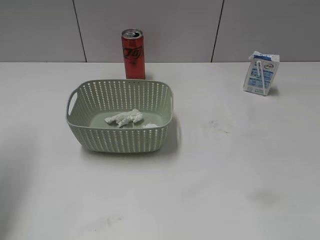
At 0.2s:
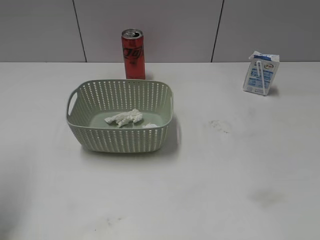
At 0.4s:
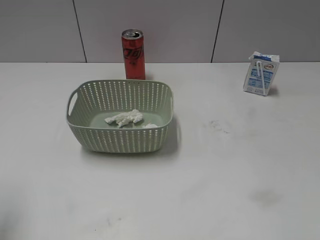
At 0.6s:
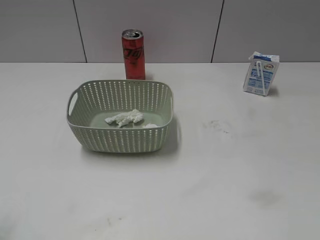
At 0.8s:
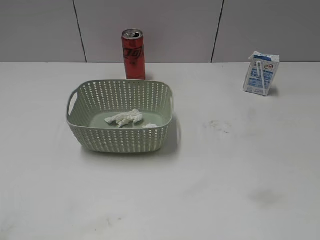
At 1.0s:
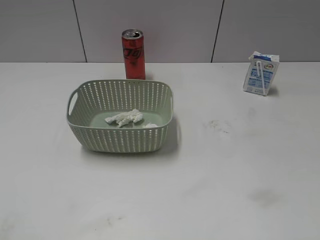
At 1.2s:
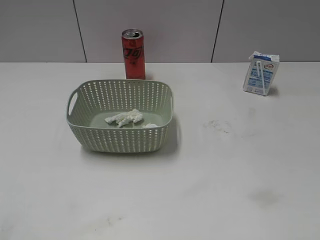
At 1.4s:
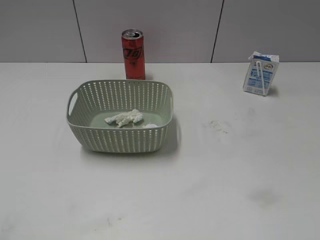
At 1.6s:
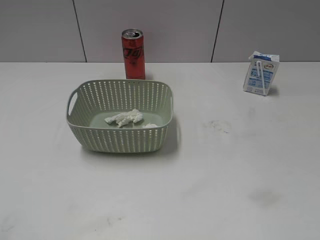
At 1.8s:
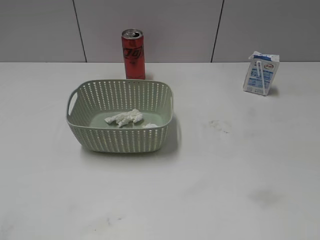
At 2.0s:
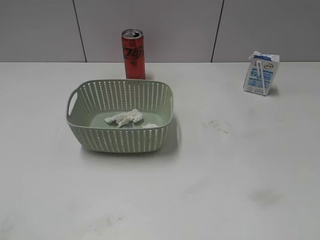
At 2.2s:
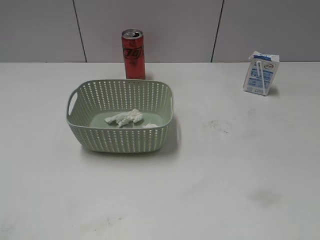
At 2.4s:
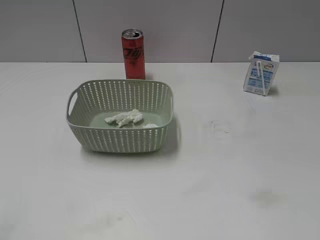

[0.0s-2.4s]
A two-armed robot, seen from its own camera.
0.0s to 1.2s: The left gripper travels backward by some 30 cm.
1.2s to 2.4s: Both grippers stay put.

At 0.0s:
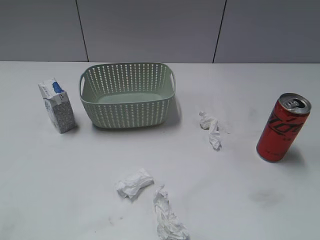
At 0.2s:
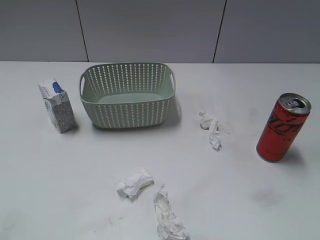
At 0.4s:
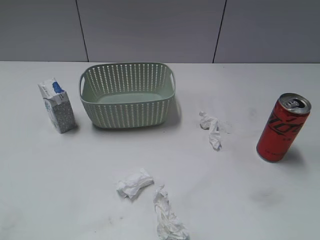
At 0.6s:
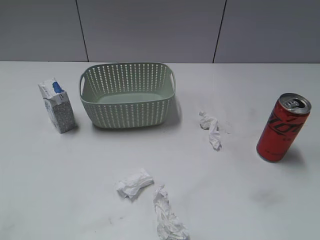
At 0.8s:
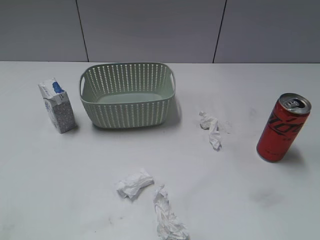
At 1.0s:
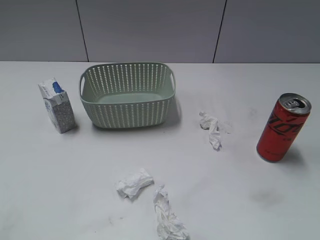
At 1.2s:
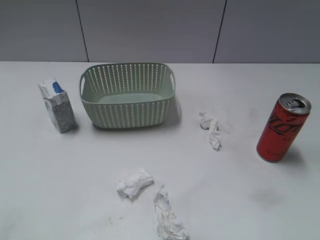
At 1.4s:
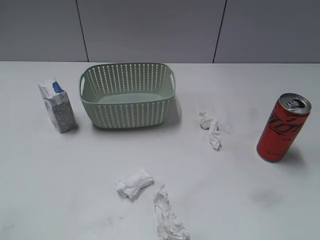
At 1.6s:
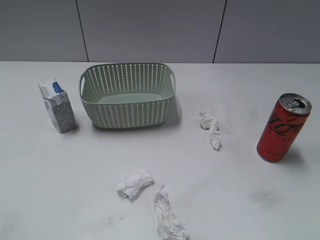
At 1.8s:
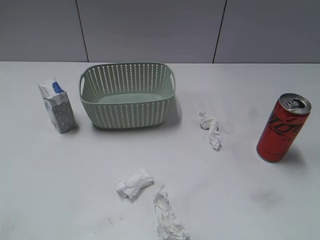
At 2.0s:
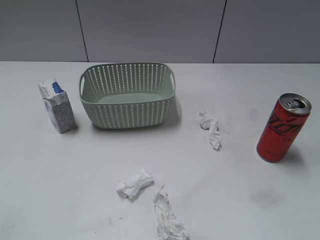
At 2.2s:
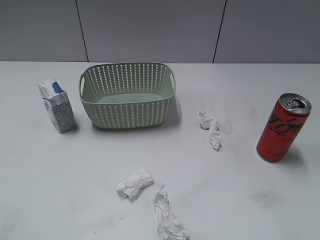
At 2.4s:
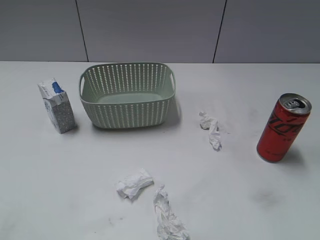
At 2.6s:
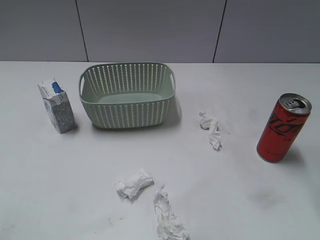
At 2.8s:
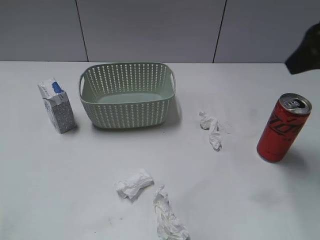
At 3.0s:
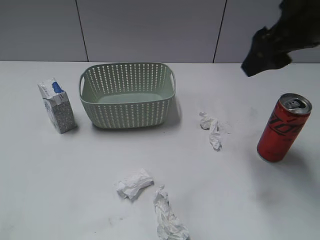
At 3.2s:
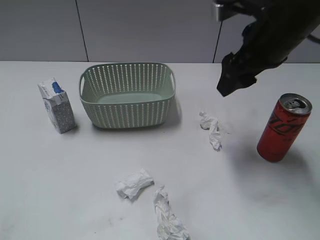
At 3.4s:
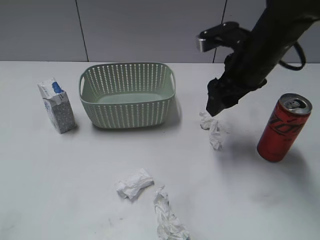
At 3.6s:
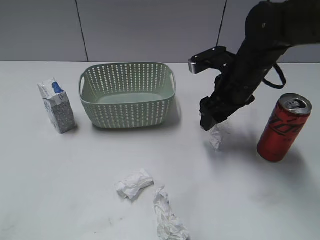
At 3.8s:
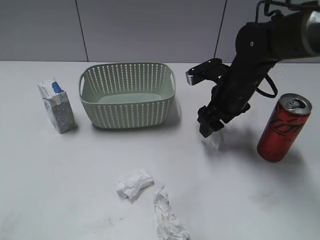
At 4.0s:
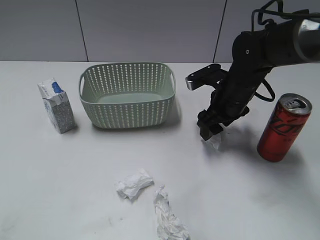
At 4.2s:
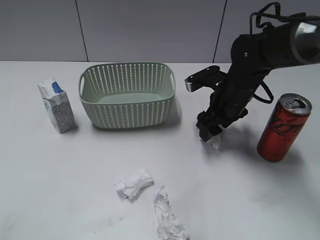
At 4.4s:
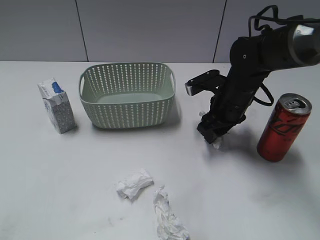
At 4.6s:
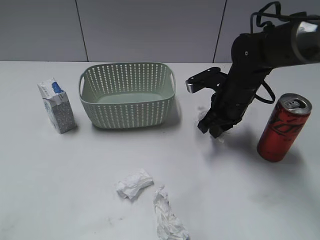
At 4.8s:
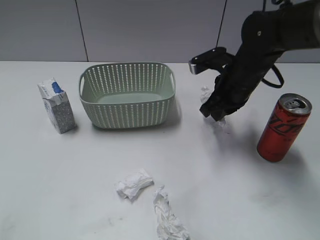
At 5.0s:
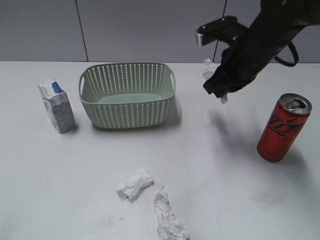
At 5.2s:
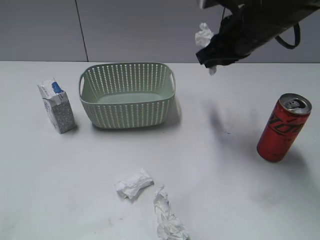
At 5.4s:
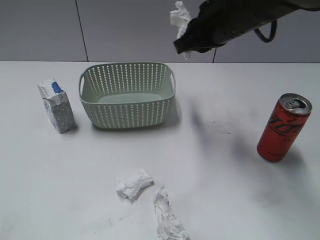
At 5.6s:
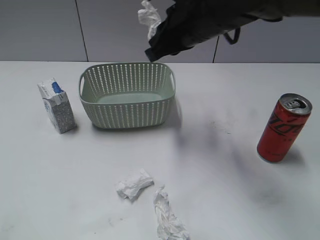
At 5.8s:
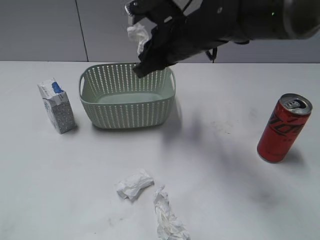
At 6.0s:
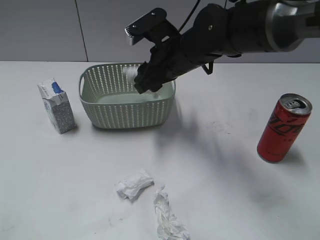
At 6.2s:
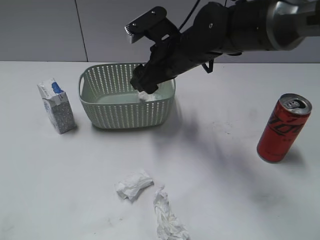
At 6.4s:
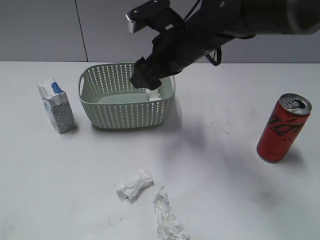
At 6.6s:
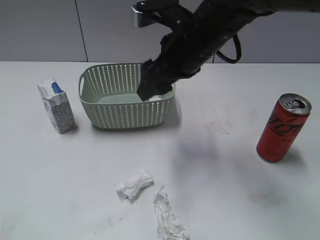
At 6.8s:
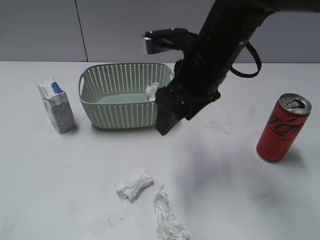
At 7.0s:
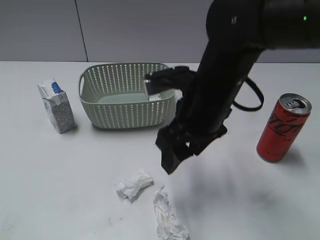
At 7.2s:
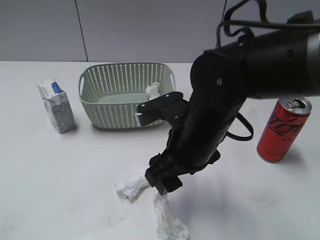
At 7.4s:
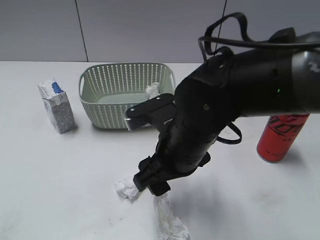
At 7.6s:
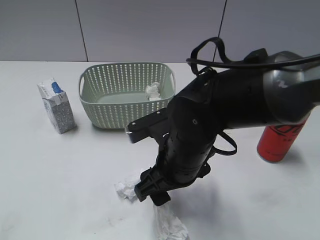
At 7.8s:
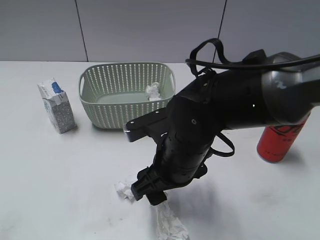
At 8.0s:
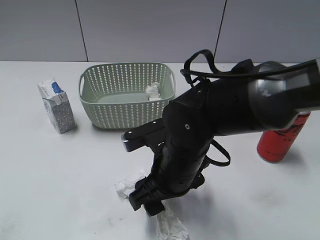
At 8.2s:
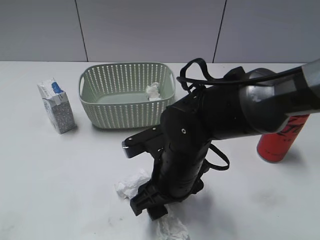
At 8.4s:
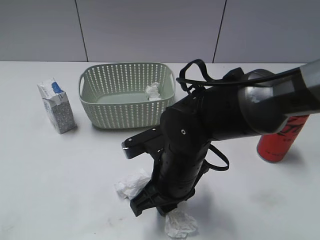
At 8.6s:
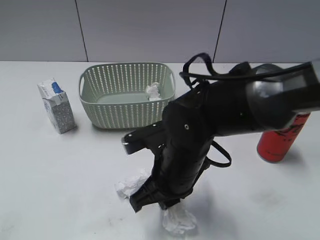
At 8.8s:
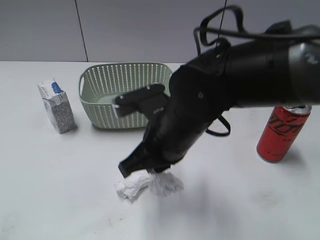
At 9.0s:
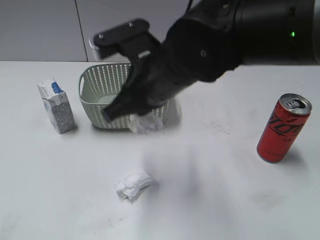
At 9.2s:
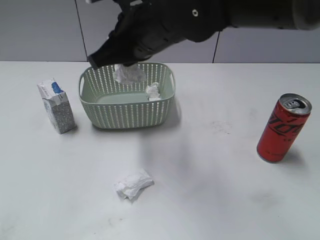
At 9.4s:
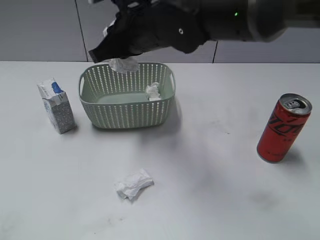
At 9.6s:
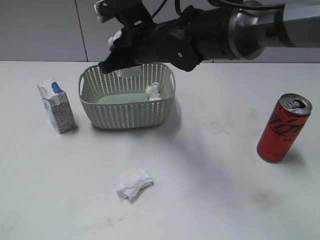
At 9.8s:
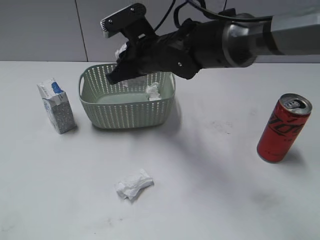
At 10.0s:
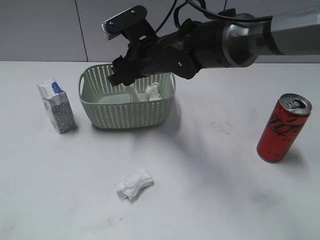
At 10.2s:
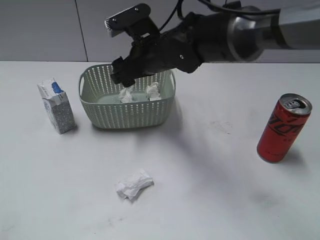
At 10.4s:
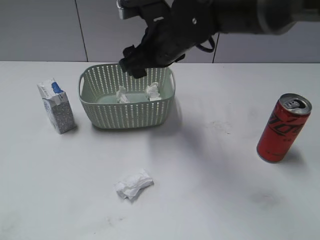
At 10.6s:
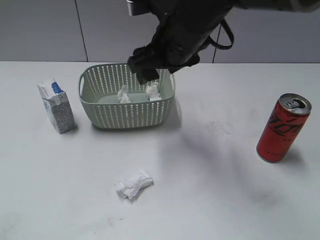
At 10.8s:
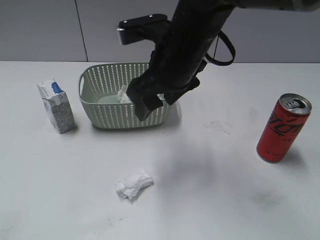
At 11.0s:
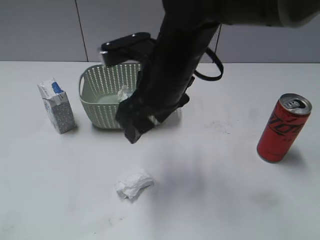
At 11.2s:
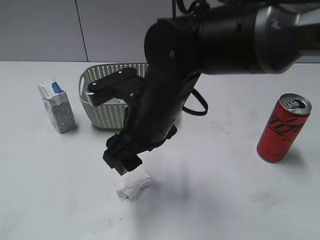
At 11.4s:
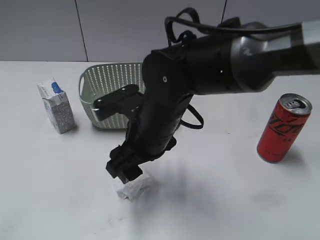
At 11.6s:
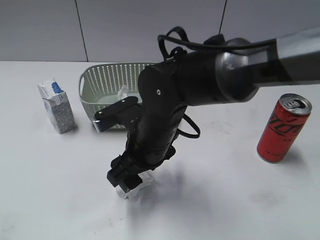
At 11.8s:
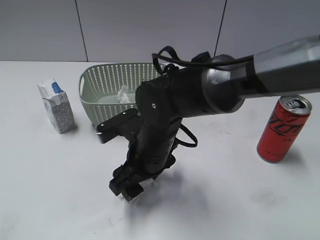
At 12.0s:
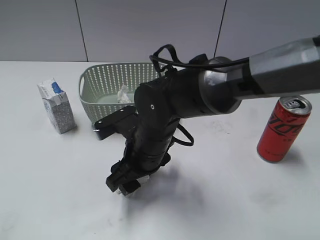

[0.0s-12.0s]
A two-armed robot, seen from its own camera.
Step, 2.6s to 4.6s: Grasp the waste paper with right gripper.
Step, 4.8s to 6.2s: Place the waste paper in the basket with right gripper.
Step, 6.4s to 8.6s: Grasp the waste paper with right gripper.
Step, 8.8s to 10.2s: Place the waste paper in the basket with right gripper.
1.6s to 3.0s: The right gripper travels forward and to the left by about 30 cm.
3.0s to 4.4s: The right gripper goes some 20 cm downward, and closes.
4.4s to 6.0s: The right gripper goes approximately 15 cm to the left and upward, and closes, then opens again.
6.0s to 7.6s: The right gripper travels backward by some 15 cm.
7.6s to 9.0s: The right gripper shifts roughly 10 cm upward, and closes.
9.0s to 10.4s: The right gripper goes roughly 10 cm forward, and opens its fingers.
10.4s to 12.0s: The right gripper goes some 15 cm downward and backward.

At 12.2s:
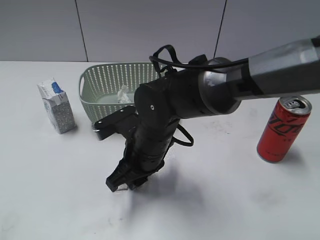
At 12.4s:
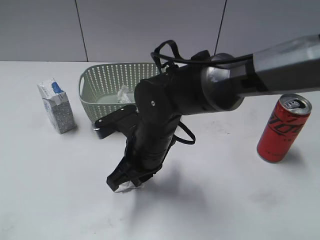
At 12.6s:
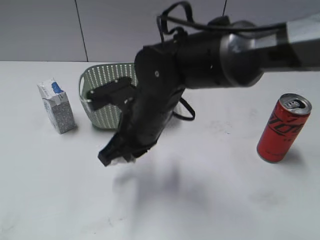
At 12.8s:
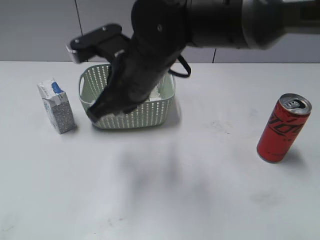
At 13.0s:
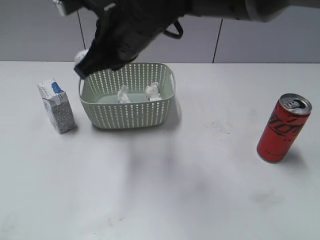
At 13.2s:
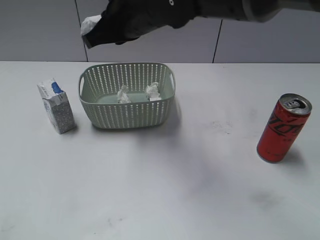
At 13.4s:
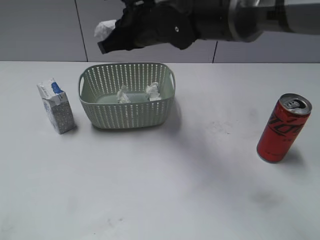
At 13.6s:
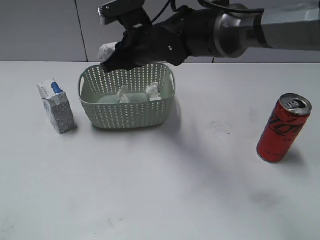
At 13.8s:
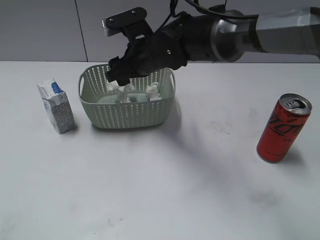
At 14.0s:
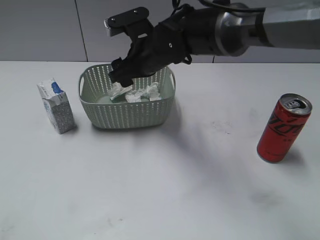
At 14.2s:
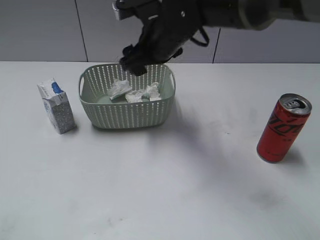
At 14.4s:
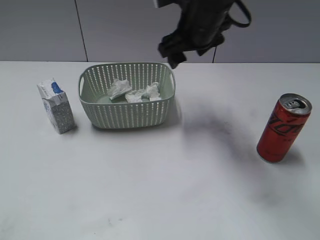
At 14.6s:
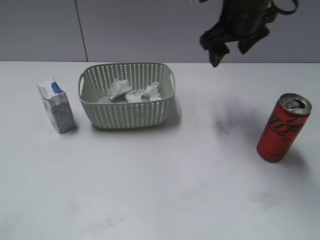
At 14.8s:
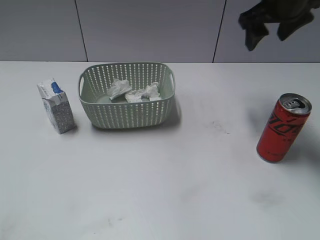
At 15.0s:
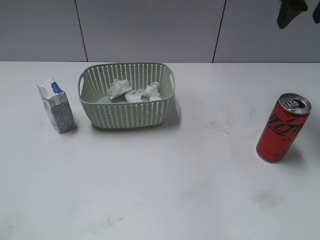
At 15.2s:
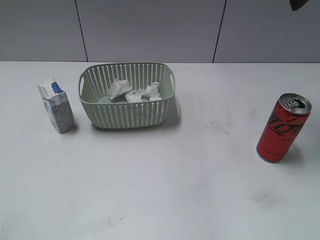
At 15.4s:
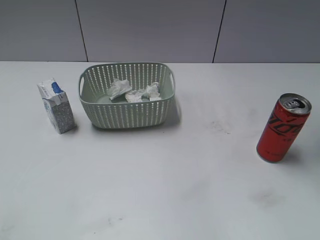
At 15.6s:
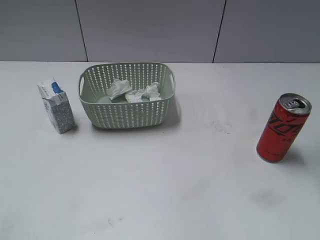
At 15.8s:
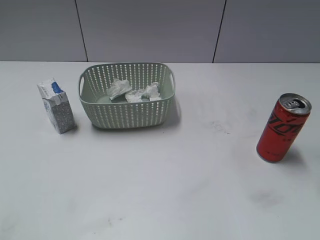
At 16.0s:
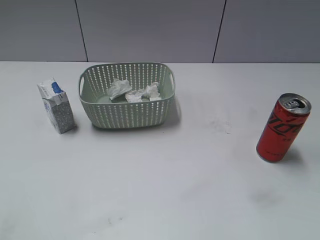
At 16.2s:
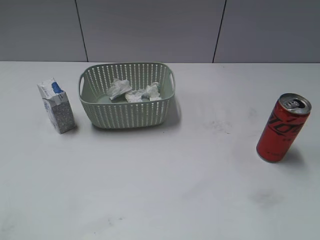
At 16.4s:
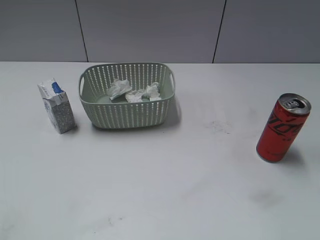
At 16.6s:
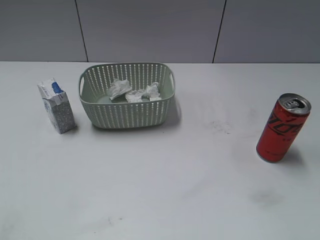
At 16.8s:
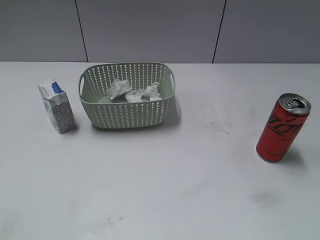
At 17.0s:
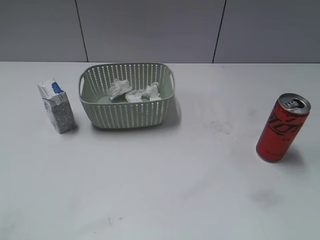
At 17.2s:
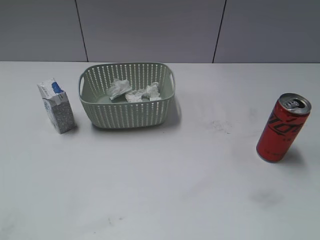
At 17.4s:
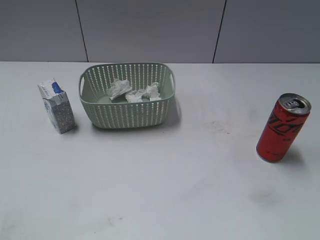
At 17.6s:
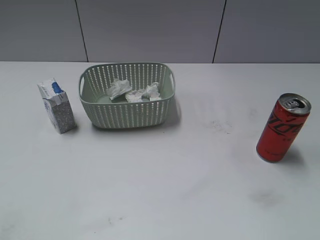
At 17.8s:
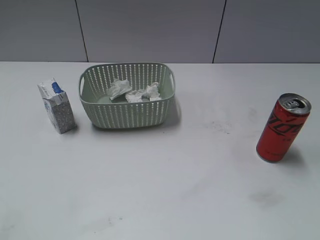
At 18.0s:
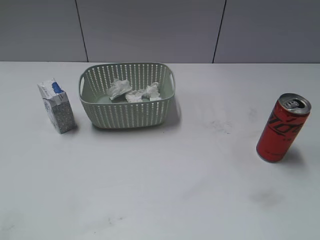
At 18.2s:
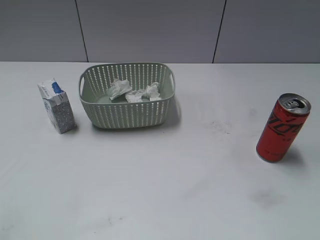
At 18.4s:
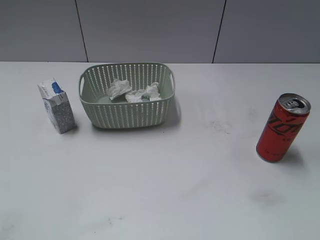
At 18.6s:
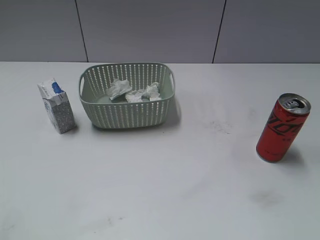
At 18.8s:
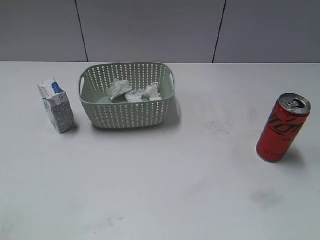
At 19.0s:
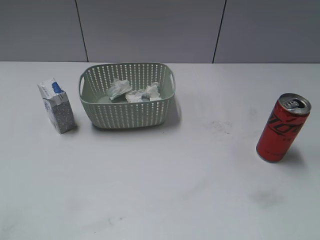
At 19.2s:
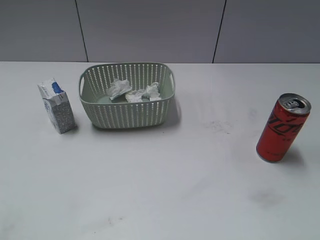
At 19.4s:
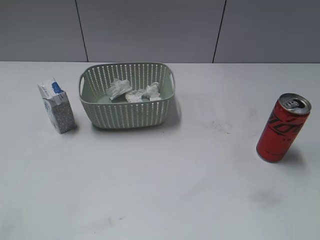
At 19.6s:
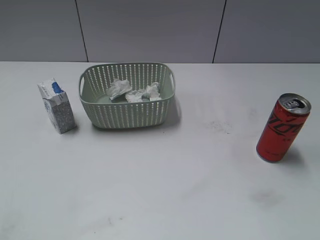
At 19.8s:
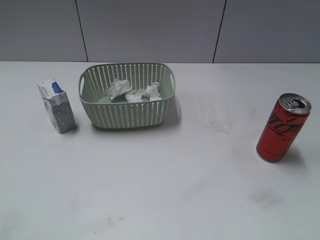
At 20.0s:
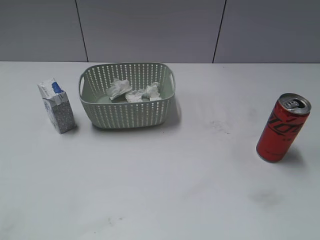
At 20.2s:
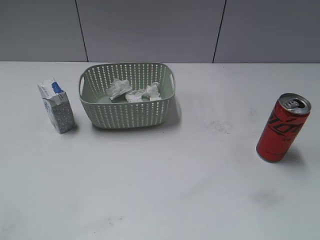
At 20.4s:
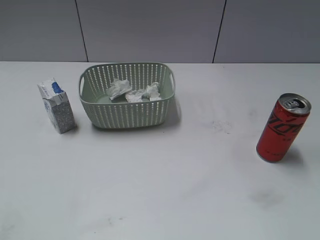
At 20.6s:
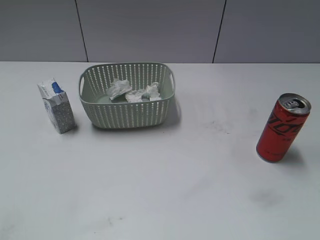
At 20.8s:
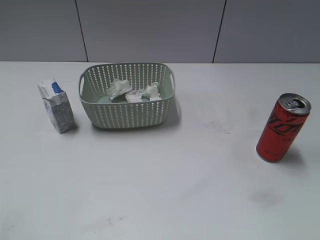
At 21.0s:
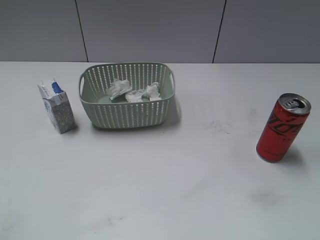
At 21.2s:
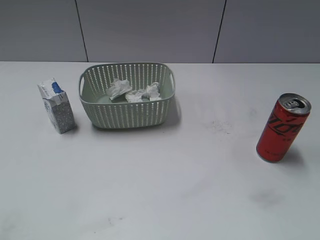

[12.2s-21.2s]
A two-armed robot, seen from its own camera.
Step, 12.8s to 14.0s: Place the waste paper in the basket with right gripper.
12.2s to 13.8s: The right gripper goes approximately 15 cm forward and upward, and opens up.
13.8s to 15.2s: The right gripper goes approximately 35 cm to the right and upward.
15.2s to 16.6s: The right gripper goes some 35 cm backward.
19.8s to 21.2s: Both grippers stay about where they are.
